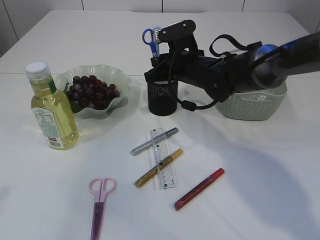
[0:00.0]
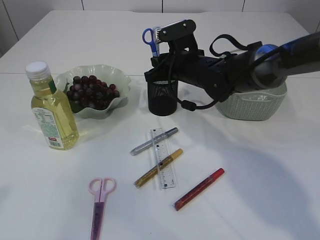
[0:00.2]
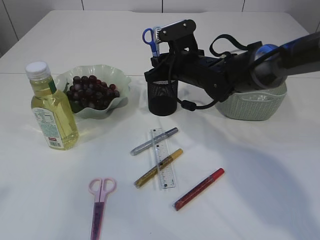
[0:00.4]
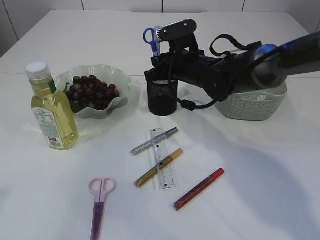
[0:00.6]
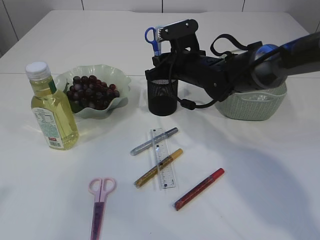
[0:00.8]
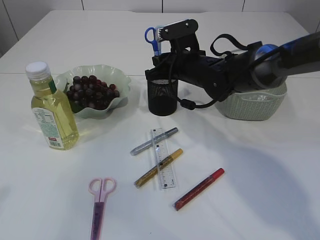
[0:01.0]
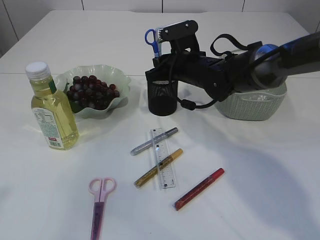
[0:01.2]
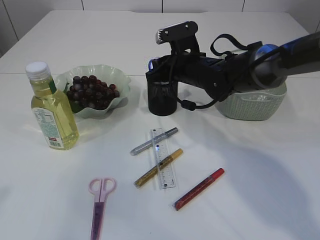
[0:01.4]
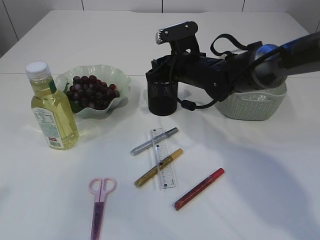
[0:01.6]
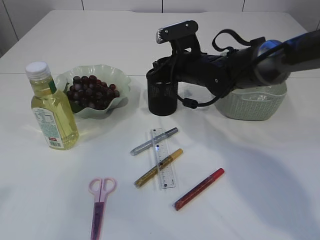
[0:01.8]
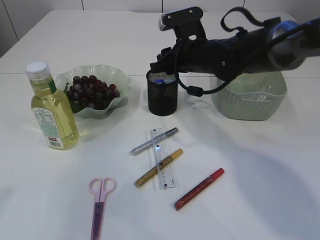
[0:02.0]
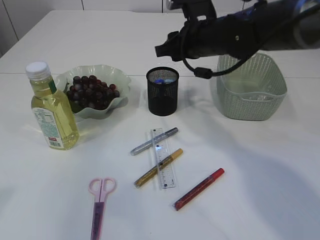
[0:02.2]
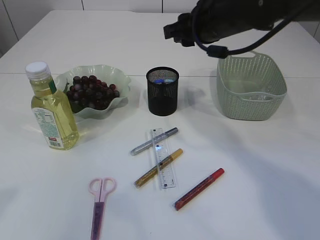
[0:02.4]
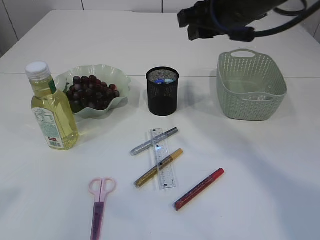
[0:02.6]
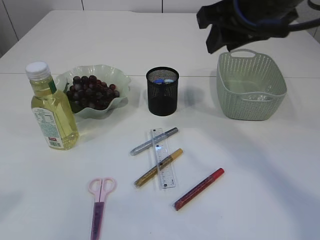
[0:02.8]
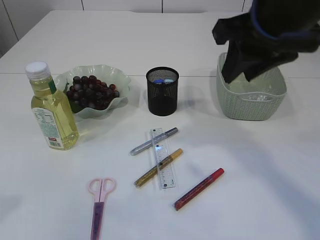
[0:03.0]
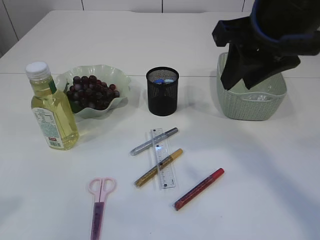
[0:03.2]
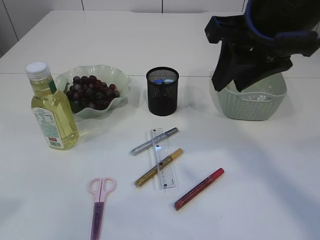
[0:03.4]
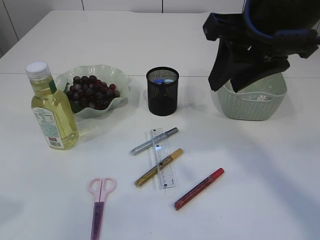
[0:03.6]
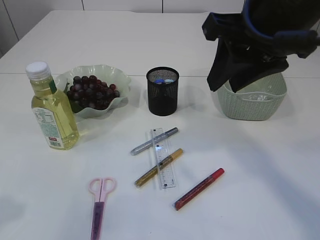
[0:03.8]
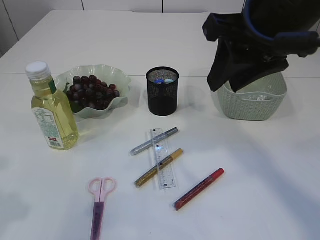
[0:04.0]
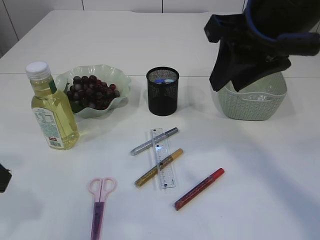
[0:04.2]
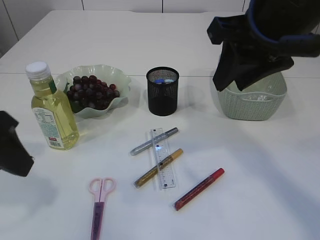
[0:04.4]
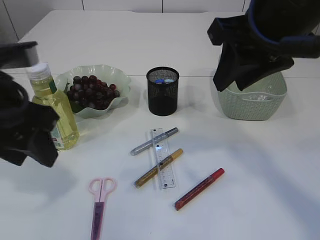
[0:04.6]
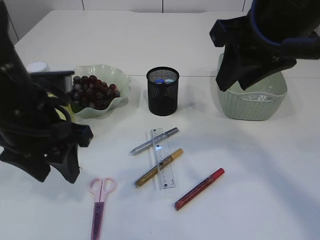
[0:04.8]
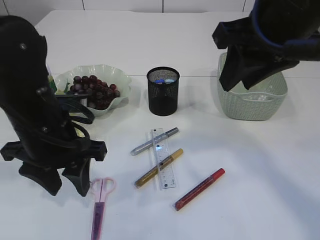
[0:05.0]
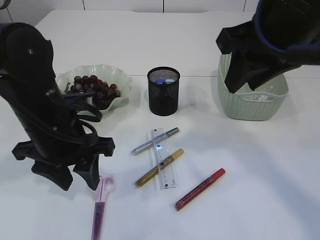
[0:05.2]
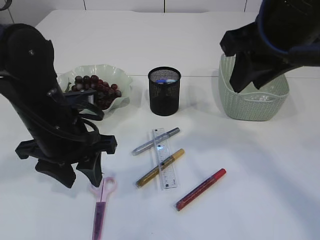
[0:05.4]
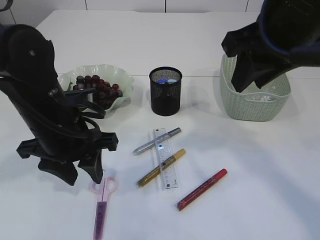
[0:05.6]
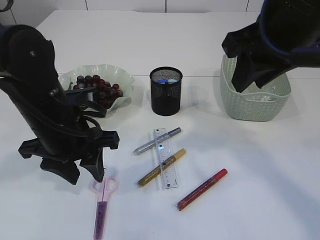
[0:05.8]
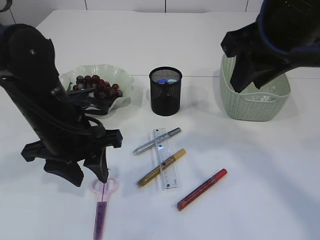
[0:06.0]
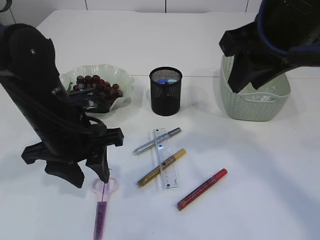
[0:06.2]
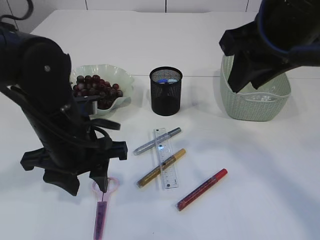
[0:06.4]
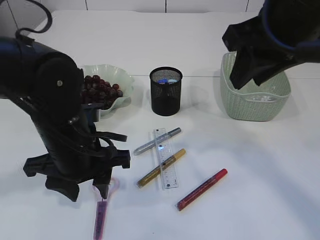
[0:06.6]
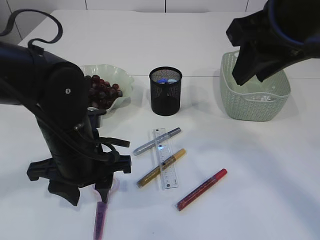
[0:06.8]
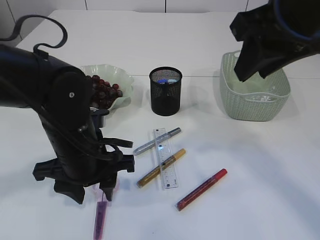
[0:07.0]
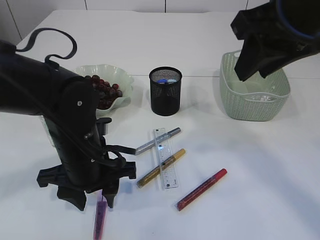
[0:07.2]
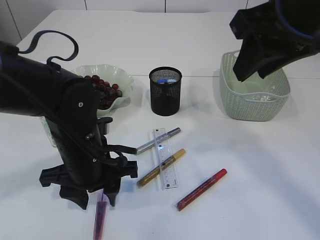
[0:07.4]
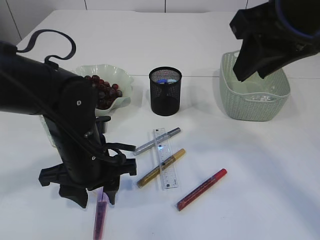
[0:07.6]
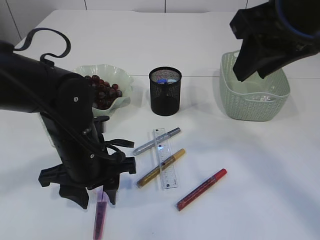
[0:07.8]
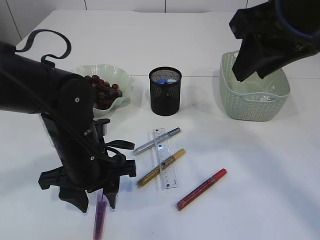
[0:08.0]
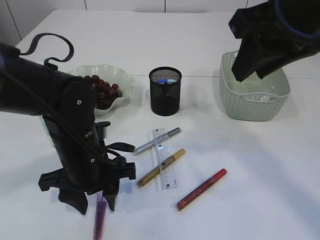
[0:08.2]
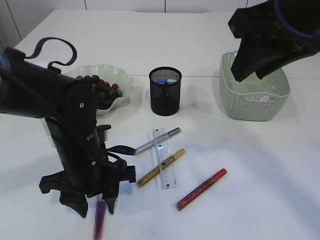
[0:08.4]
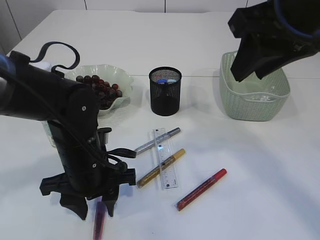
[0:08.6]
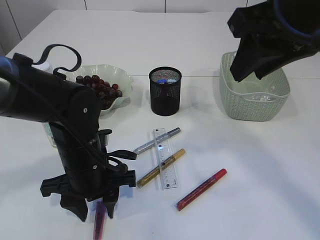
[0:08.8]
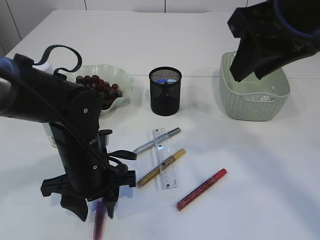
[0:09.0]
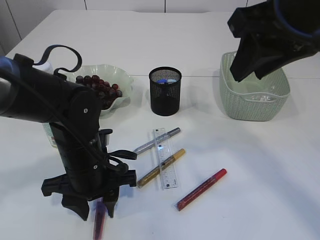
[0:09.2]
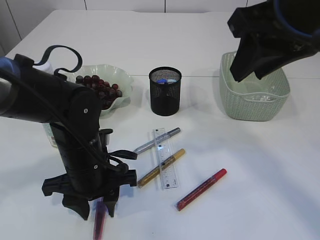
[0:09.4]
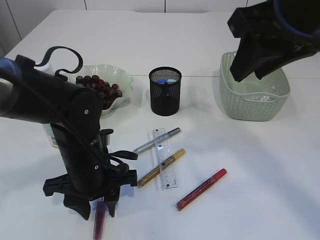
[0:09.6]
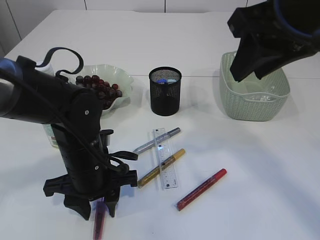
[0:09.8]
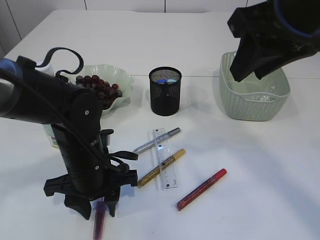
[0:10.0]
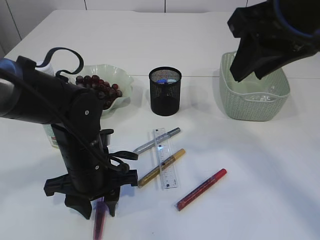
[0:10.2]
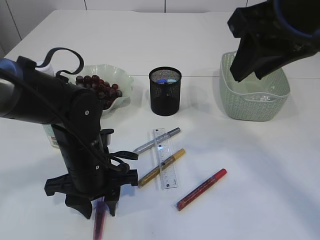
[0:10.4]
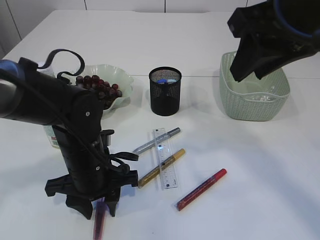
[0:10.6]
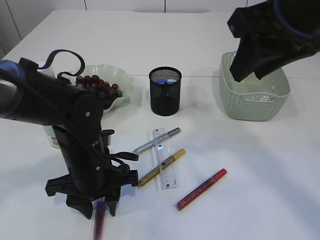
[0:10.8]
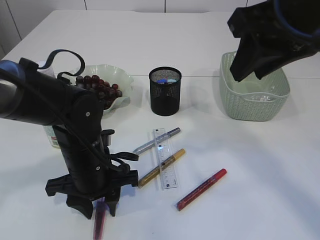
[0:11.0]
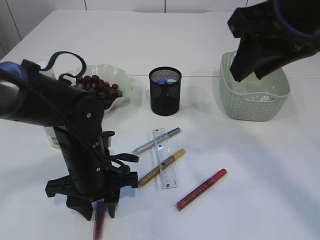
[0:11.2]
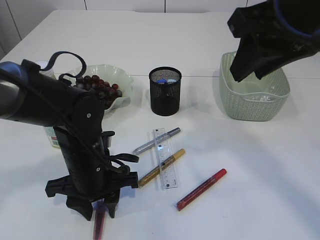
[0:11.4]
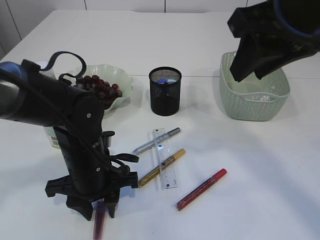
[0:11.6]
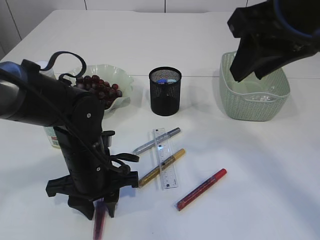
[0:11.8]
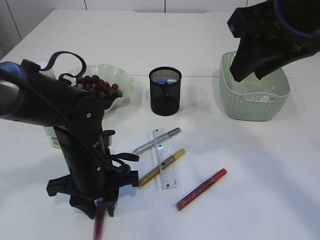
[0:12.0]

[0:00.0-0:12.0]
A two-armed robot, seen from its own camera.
Step, 0:00.0 to 0:02.2: Place the blue scissors into the pen holder.
0:00.0 to 0:01.6: The two grippers keep their place.
0:01.6 to 0:03.0: The right gripper goes roughly 25 cm upward and backward.
0:03.0 to 0:04.4: The left gripper shifts about 5 cm forward.
0:04.4 to 0:06.0: The left gripper is displaced downward, to the right and forward by approximately 15 cm.
0:06.0 to 0:07.6: The left gripper shifts some 5 cm downward.
0:07.6 to 0:09.0: The grippers stay close to where they were, moving slightly.
0:09.0 to 0:12.0: Both grippers stay put.

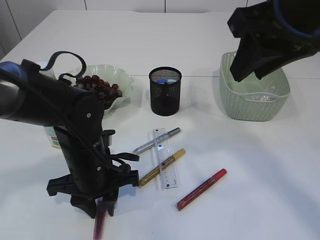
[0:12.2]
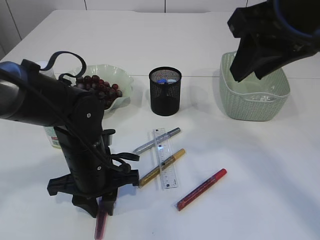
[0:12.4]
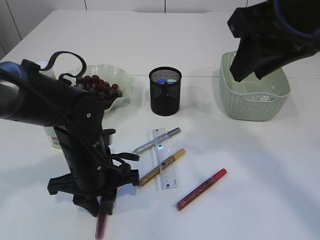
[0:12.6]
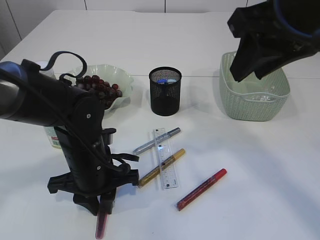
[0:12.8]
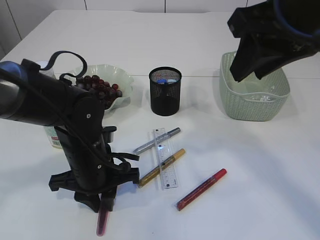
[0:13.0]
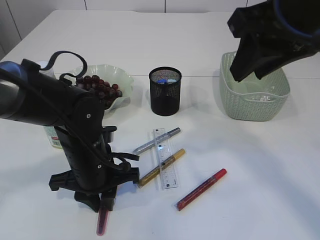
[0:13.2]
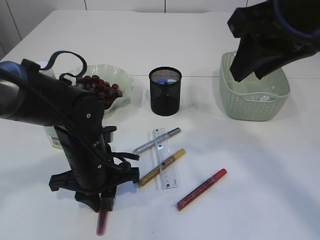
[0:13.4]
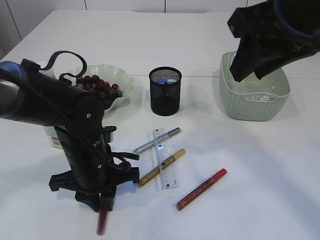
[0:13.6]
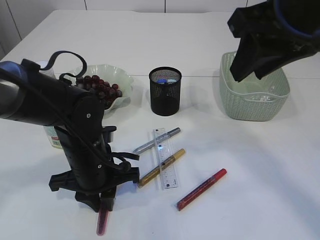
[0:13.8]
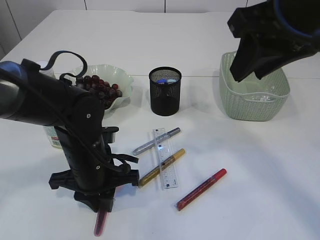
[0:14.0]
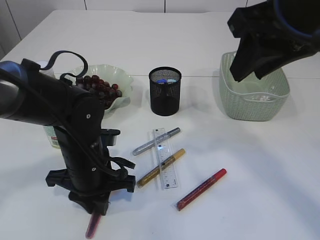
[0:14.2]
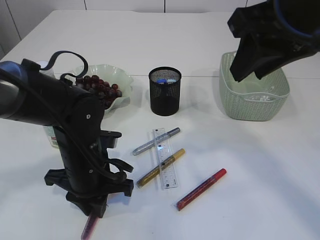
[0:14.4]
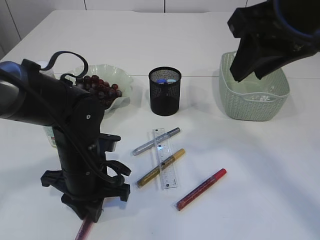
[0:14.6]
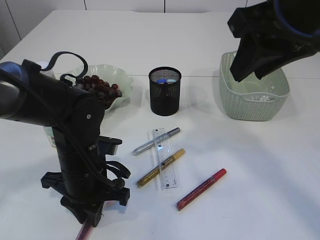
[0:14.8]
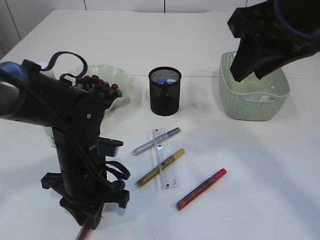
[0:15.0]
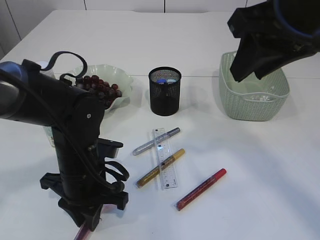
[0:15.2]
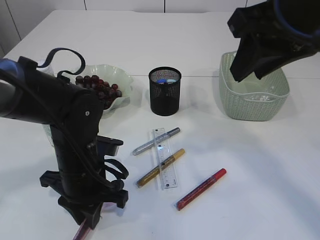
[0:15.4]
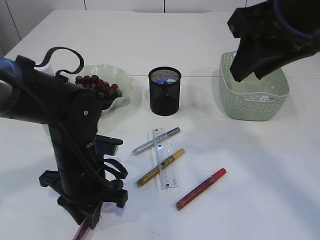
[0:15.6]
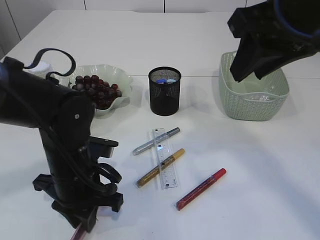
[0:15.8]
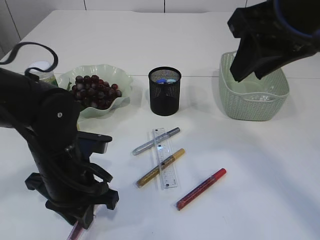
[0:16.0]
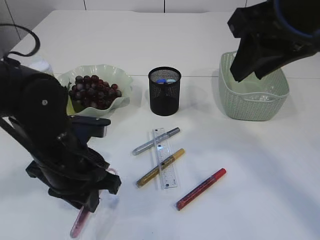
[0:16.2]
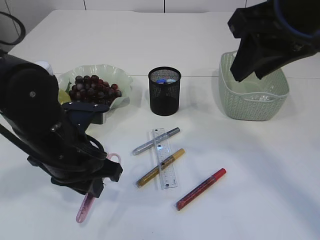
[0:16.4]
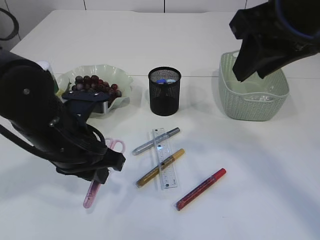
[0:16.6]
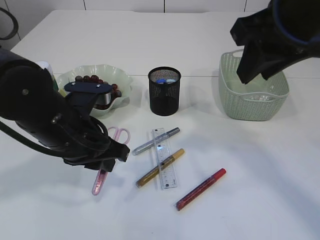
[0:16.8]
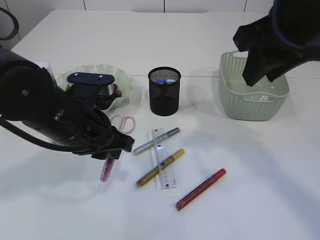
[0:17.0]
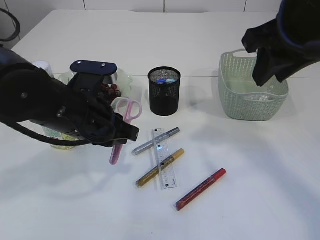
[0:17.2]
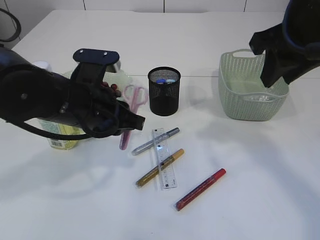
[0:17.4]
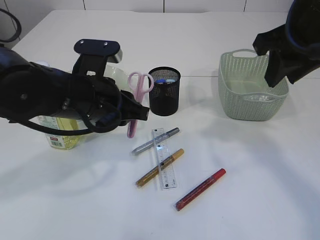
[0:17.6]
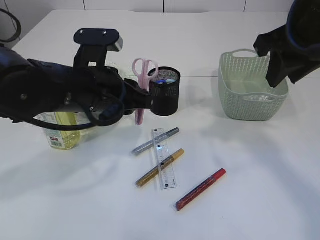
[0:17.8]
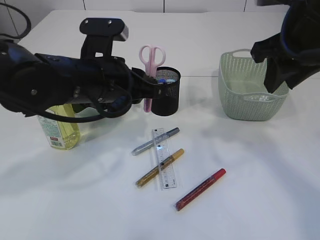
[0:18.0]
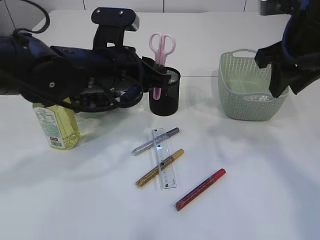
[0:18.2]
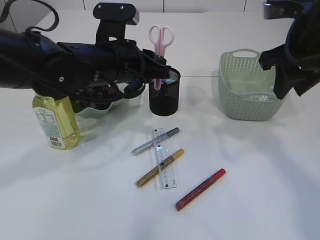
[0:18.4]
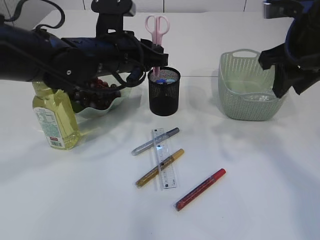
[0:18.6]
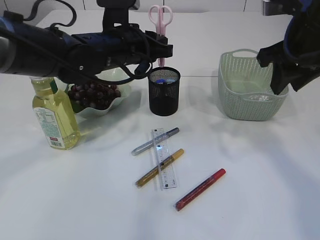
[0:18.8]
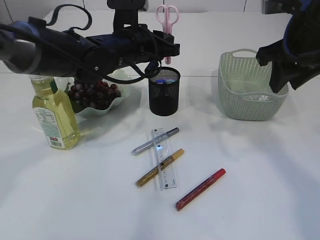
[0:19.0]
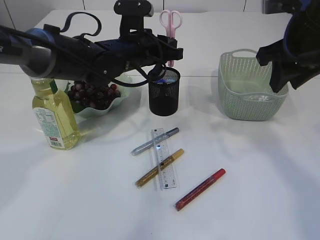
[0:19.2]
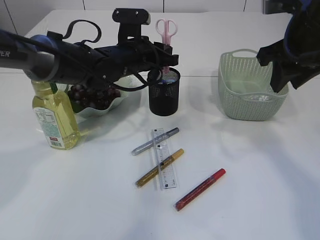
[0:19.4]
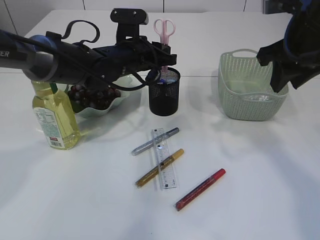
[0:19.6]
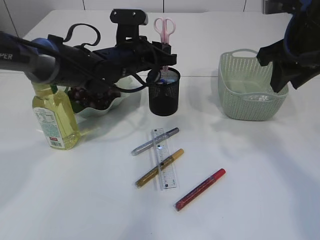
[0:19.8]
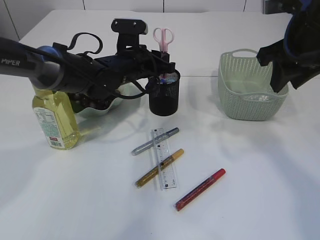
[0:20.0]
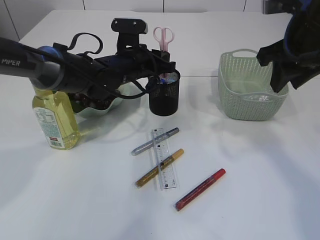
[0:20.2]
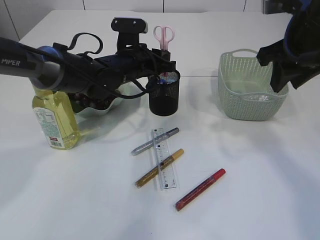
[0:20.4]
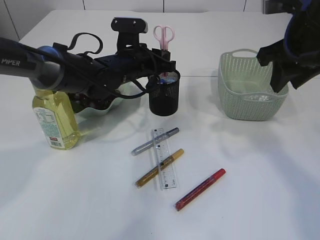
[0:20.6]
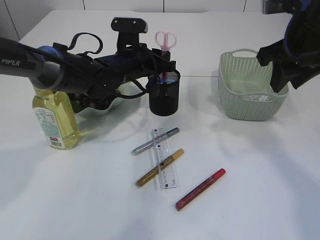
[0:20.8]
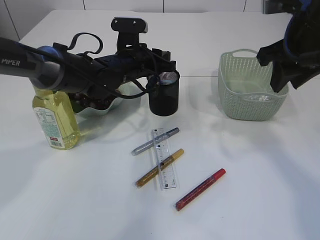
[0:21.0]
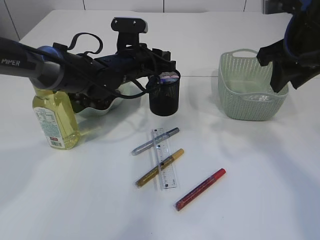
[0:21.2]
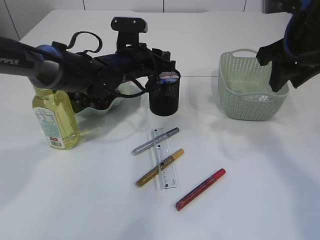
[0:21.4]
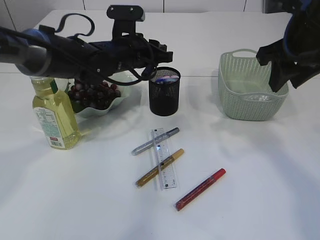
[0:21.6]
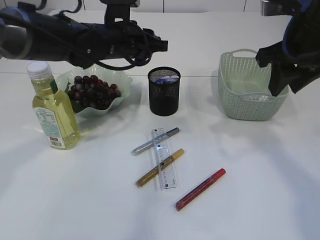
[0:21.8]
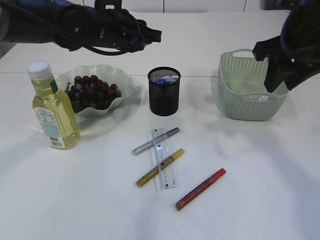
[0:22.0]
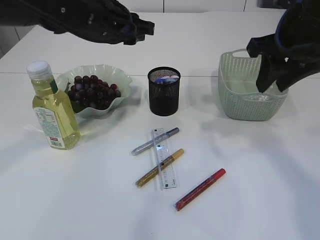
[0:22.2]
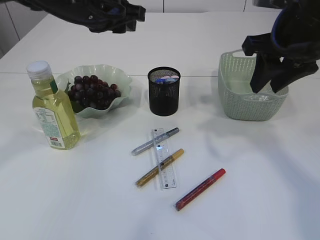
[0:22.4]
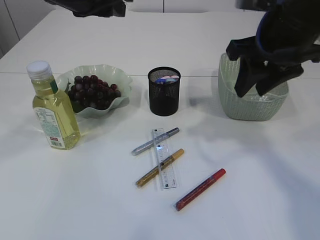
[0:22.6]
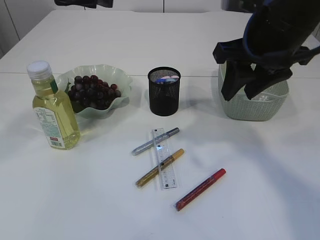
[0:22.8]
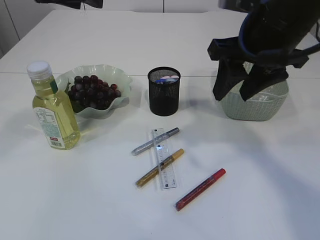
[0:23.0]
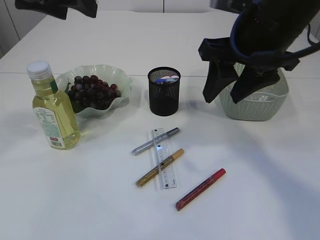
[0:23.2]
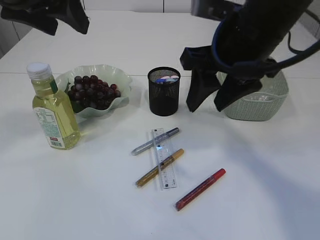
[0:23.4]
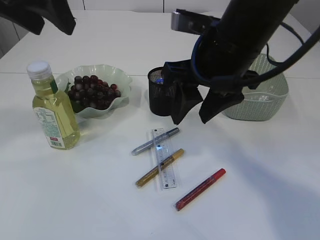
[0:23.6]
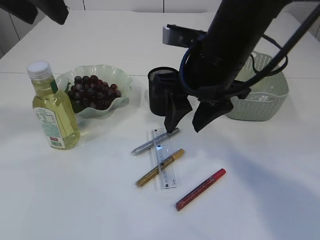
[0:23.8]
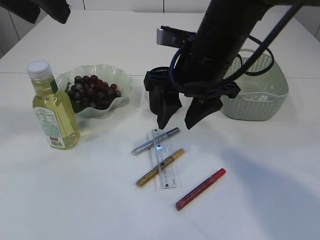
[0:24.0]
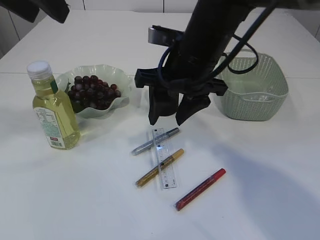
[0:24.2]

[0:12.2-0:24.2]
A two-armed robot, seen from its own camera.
Step, 0:12.2 to 0:16.8: pick up the pink scissors.
Step, 0:17.0 to 0:21.6: Place the pink scissors into the pen holder.
0:12.2 to 0:13.8: Both grippers stay put.
0:15.2 to 0:16.6: The left gripper shifts approximately 5 cm upward.
0:16.6 to 0:18.2: The left gripper goes roughly 5 cm forward. The right gripper moves forward, downward and to the right, some 10 cm.
0:18.2 to 0:19.8: The left gripper shifts about 10 cm forward.
0:19.8 to 0:21.2: The grippers stay close to where they were, moving slightly.
0:21.2 to 0:22.6: The left gripper goes approximately 20 cm upward and backward.
0:22.6 to 0:24.2: The left gripper is displaced backward and upward by approximately 10 cm, while the right gripper travels to the left by approximately 10 cm.
